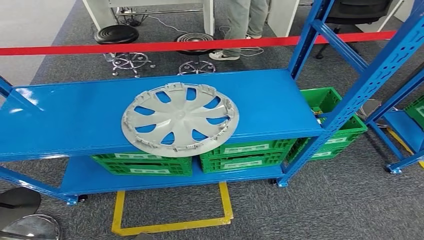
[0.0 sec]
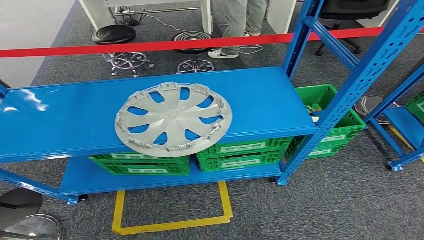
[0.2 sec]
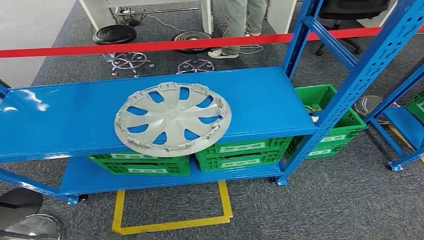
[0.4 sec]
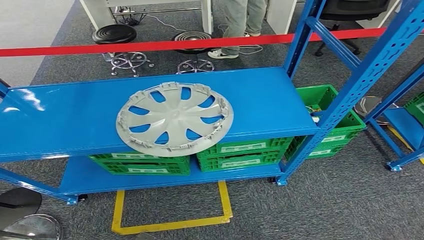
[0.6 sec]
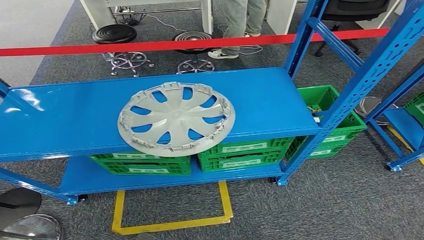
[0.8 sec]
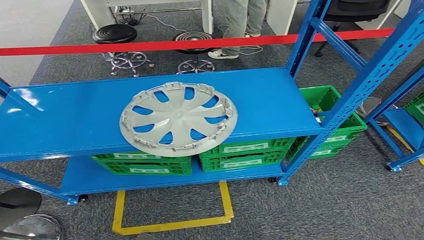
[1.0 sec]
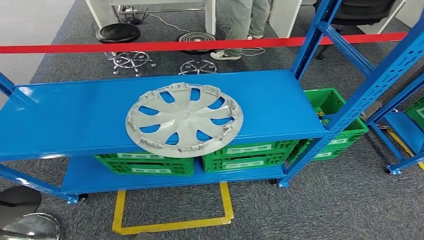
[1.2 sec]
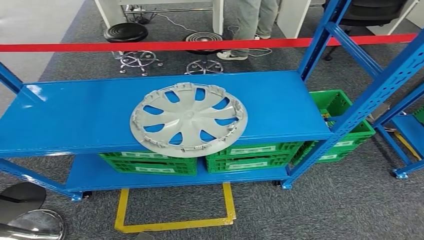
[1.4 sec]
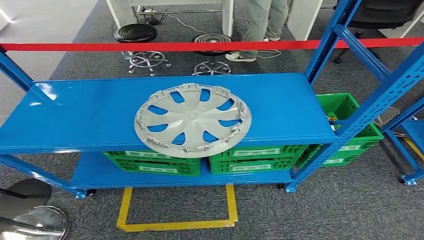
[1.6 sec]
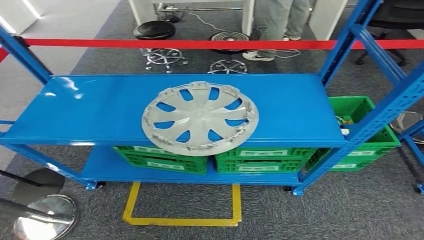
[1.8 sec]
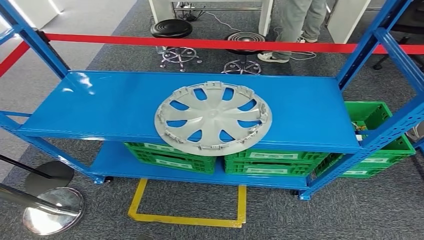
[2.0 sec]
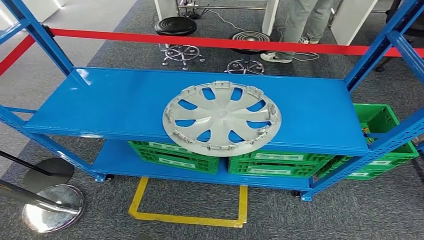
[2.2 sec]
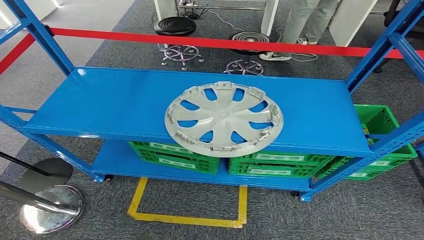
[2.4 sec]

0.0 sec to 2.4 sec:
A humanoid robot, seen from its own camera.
Step, 0.0 sec to 2.4 sec: Return to the initial position at the workbench.
0.0 sec to 1.2 sec: The hands make only small movements.
